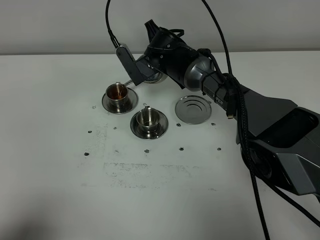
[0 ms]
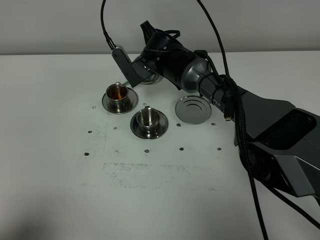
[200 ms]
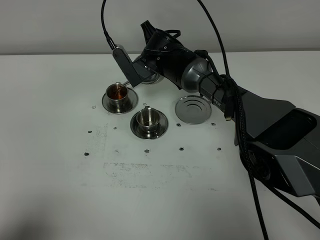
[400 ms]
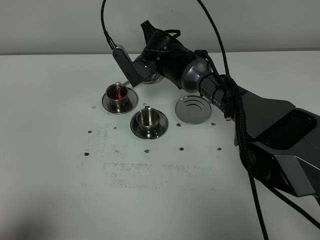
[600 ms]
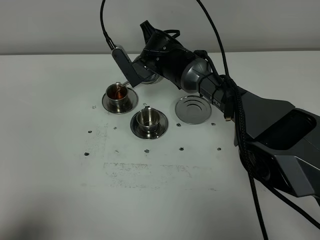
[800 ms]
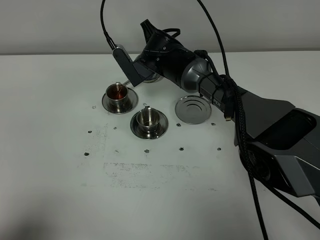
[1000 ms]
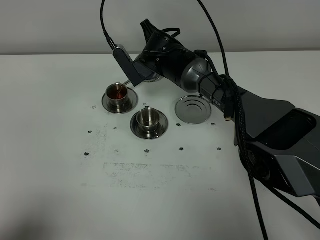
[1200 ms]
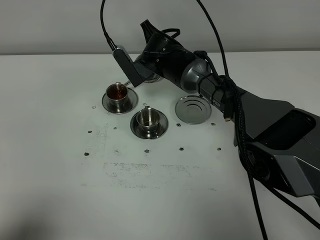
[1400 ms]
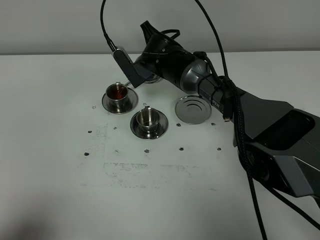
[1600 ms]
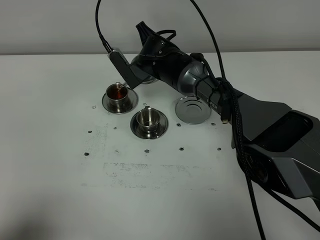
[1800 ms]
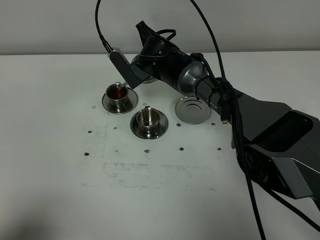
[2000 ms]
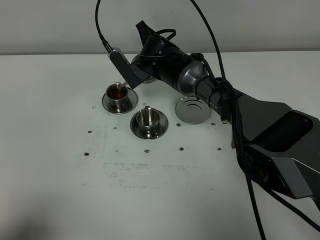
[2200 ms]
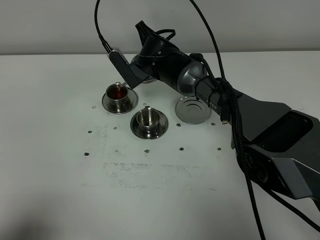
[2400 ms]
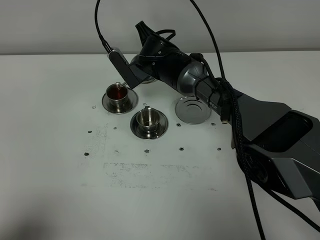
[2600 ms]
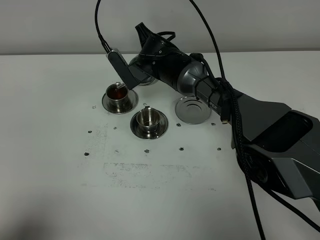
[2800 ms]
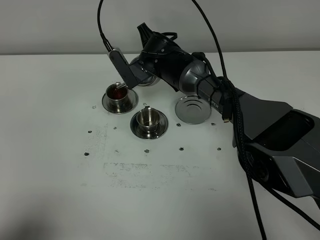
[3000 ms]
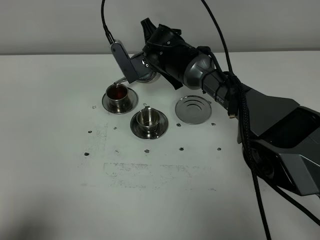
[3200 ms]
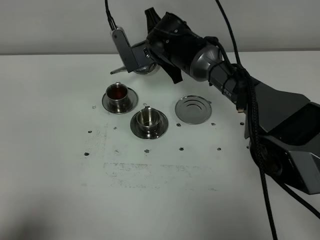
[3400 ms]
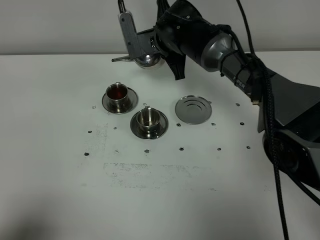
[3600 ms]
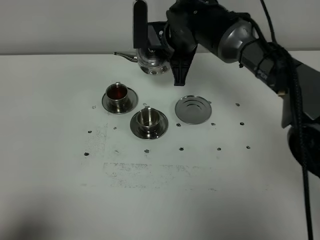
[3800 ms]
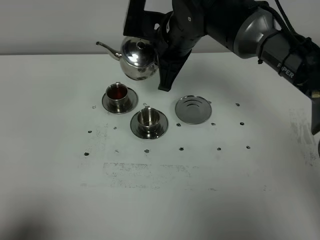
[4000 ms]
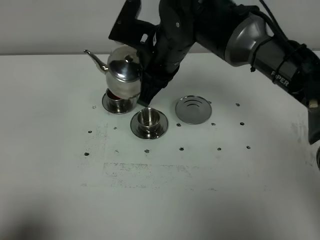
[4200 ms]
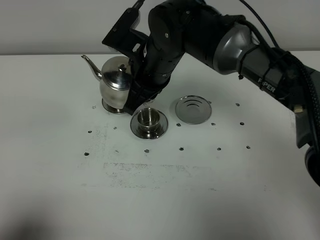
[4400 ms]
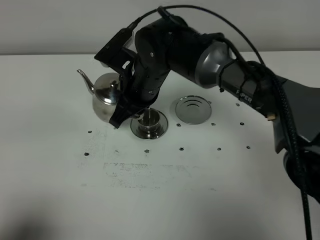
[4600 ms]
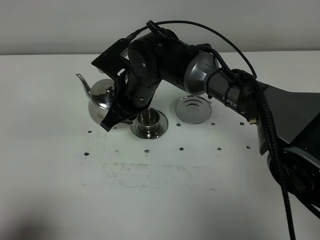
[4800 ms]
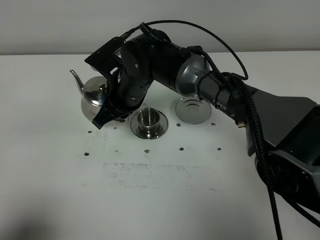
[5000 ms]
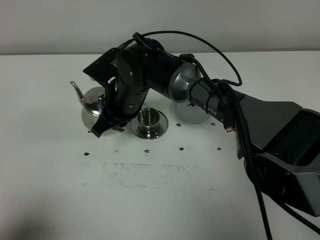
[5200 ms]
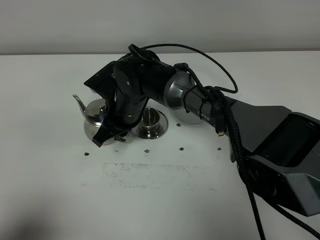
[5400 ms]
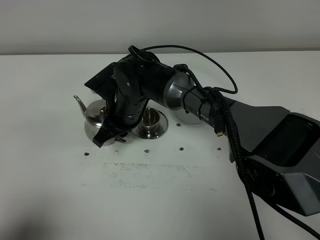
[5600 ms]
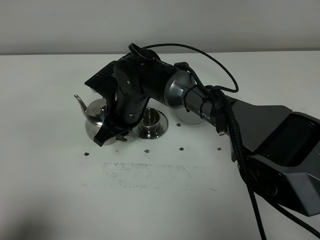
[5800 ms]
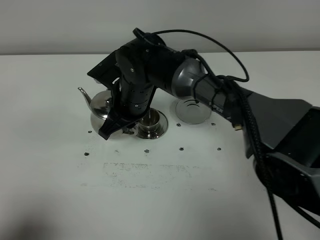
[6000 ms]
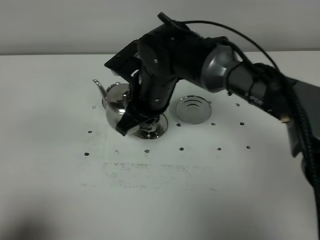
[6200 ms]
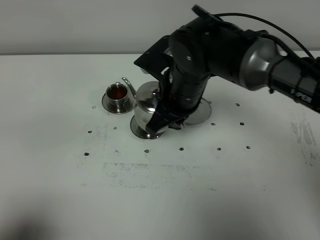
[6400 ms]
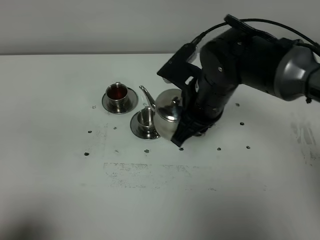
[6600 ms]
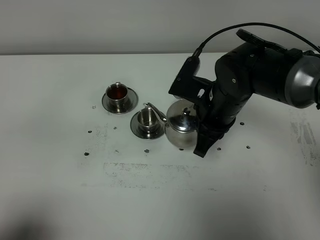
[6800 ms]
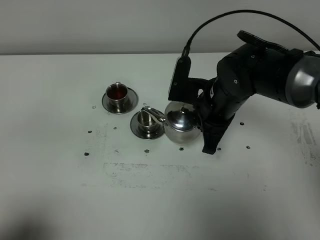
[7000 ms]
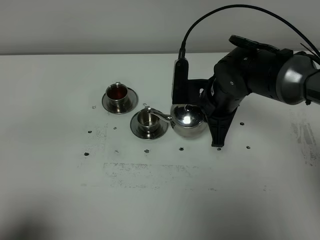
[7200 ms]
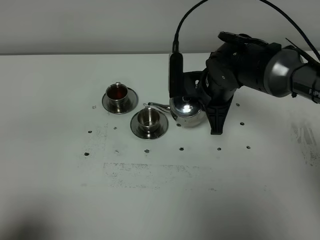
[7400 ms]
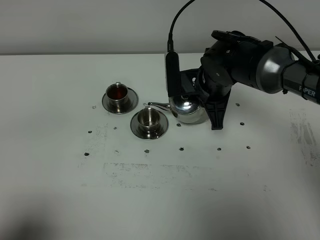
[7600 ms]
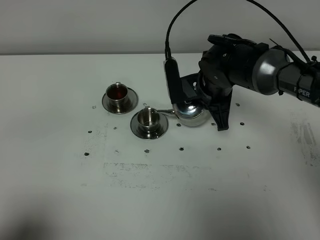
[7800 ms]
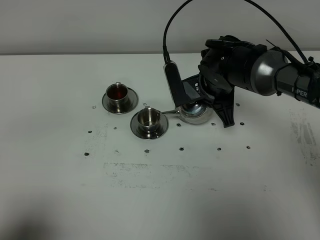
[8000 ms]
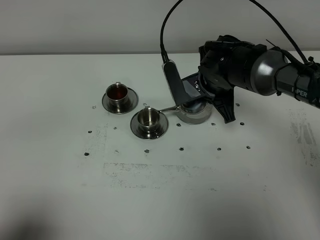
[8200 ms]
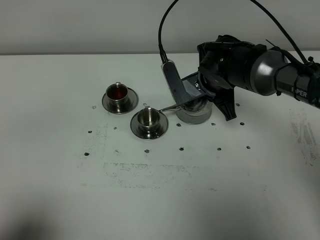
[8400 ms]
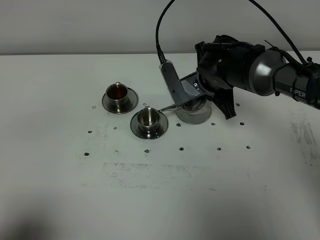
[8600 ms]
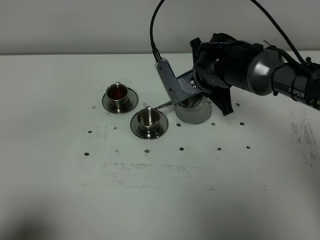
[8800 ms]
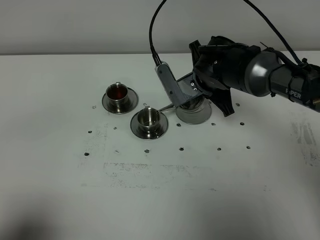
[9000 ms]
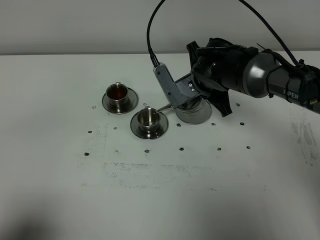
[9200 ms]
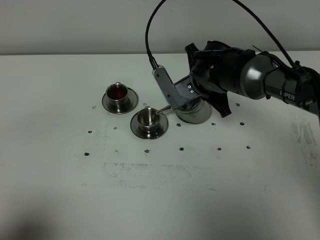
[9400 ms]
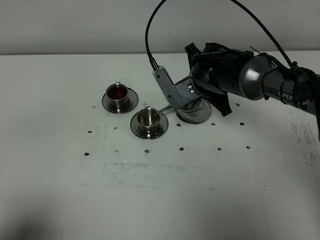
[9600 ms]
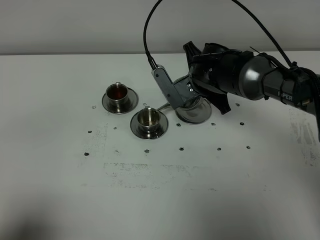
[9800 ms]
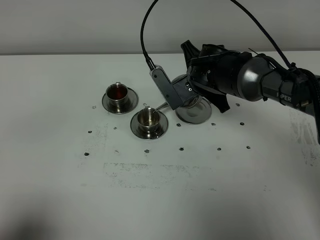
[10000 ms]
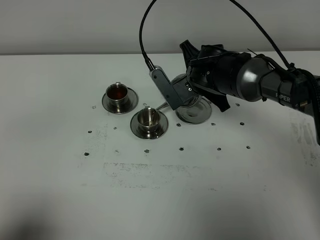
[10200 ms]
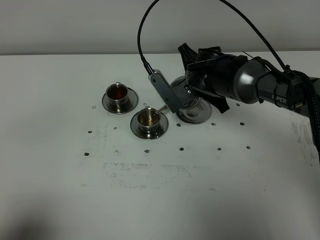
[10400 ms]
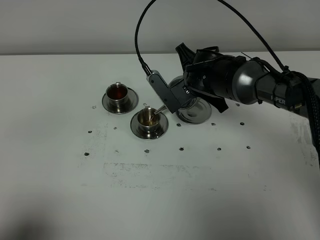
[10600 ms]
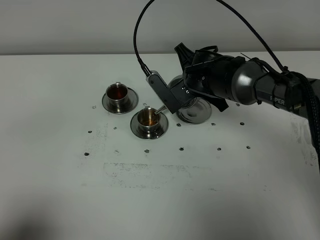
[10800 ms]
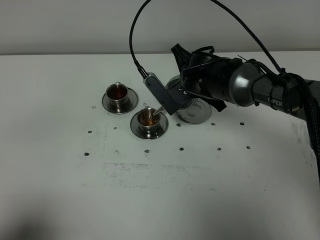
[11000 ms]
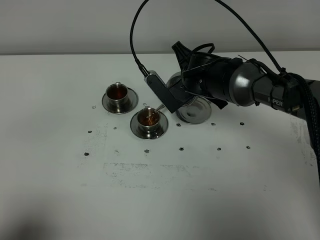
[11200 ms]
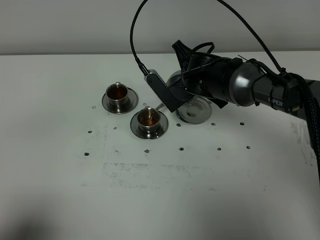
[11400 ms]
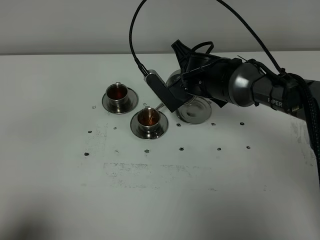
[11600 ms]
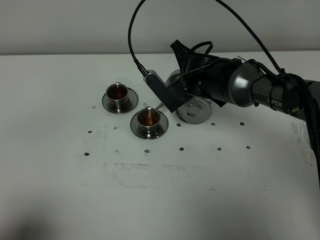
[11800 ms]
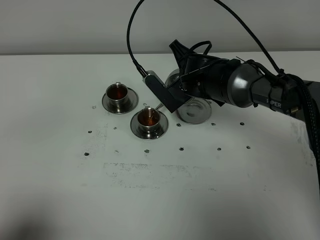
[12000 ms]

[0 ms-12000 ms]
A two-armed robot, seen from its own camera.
Task of the whole recording: grasp the stainless steel teapot and pour the tea into the two stainless steel teacups one by one, put the stainless steel teapot back in its original place.
Step, 0 ms to 3200 ms: Pour tea into the teacup with the right gripper.
0 ms to 1600 ms: Both grippers stay about where they are.
1600 ms to 3000 ms: The two grippers keep their place.
3000 ms to 4400 ms: The right gripper moves backward and upward, some 15 cm.
4400 ms to 6000 ms: The right gripper is displaced downward by approximately 5 cm.
6000 ms to 7600 ms: The right gripper is displaced to the right by approximately 15 cm.
9000 ms to 12000 ms: There are only small adjustments of the grippers.

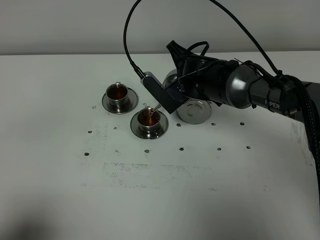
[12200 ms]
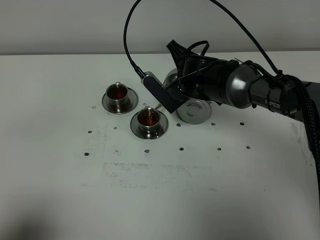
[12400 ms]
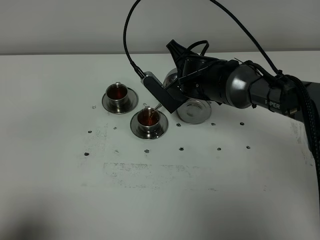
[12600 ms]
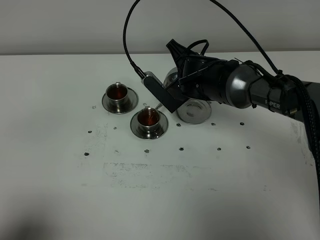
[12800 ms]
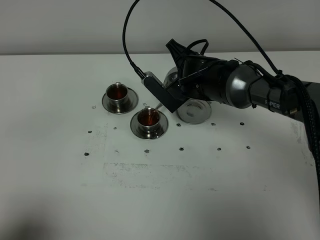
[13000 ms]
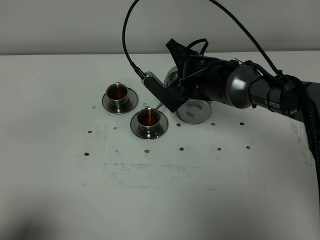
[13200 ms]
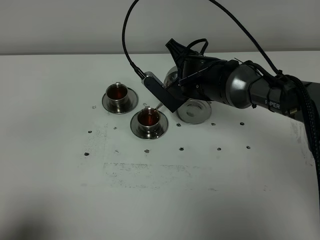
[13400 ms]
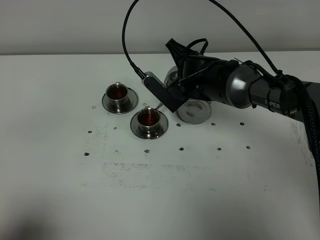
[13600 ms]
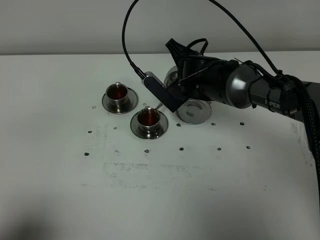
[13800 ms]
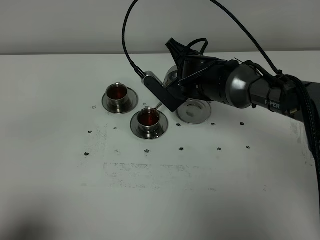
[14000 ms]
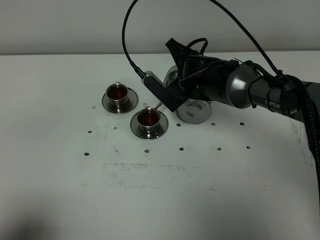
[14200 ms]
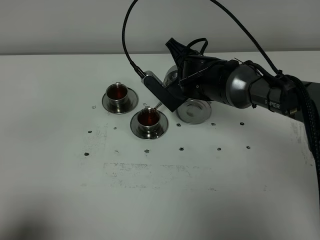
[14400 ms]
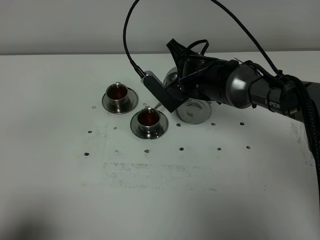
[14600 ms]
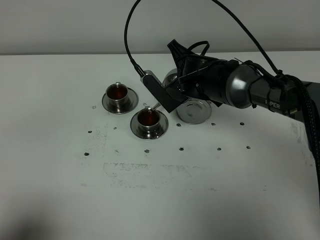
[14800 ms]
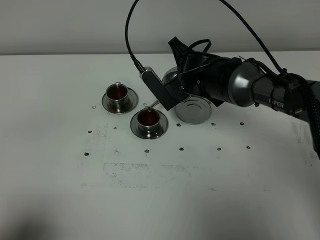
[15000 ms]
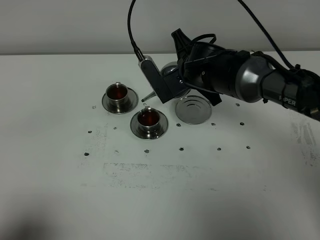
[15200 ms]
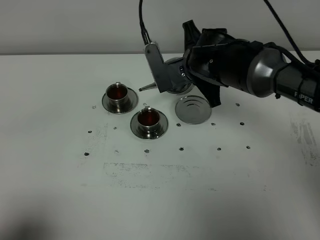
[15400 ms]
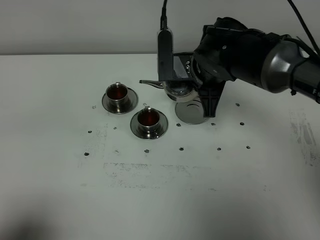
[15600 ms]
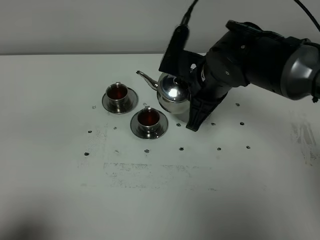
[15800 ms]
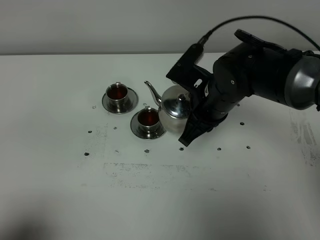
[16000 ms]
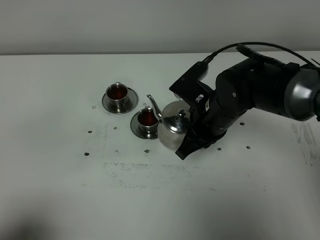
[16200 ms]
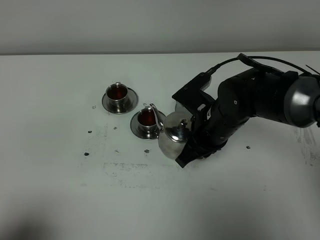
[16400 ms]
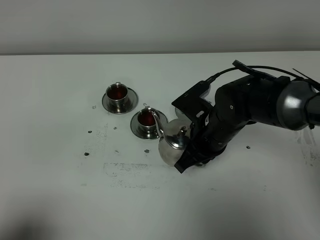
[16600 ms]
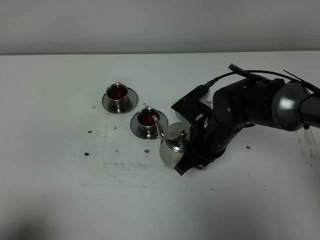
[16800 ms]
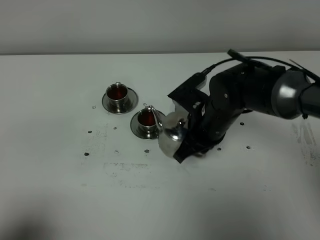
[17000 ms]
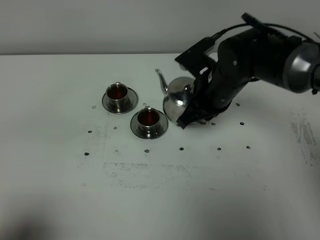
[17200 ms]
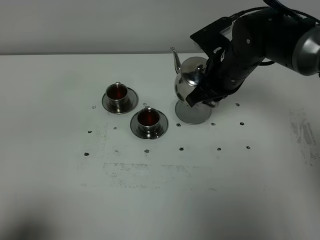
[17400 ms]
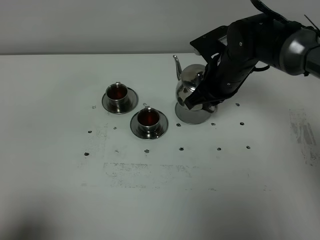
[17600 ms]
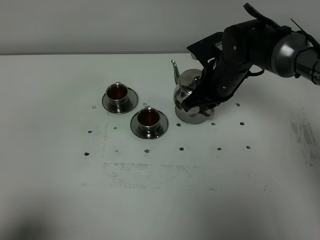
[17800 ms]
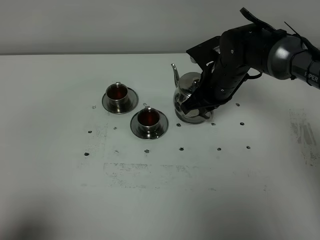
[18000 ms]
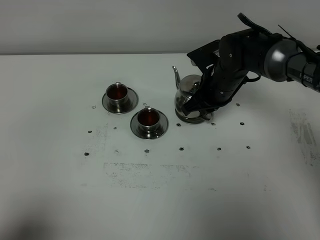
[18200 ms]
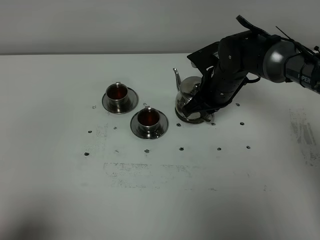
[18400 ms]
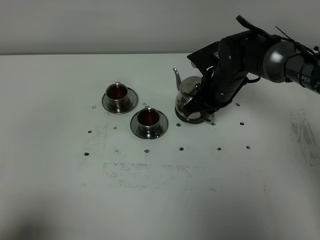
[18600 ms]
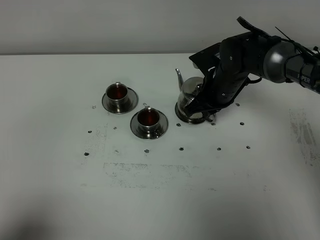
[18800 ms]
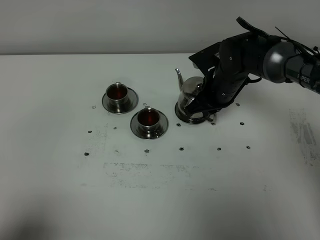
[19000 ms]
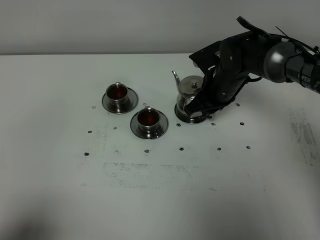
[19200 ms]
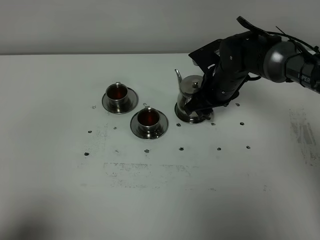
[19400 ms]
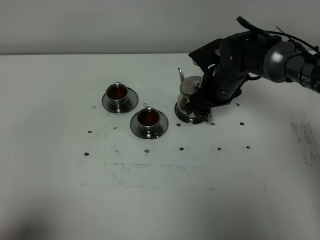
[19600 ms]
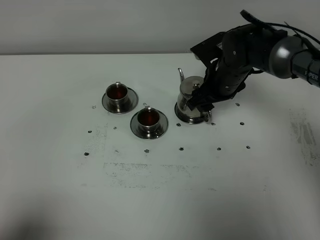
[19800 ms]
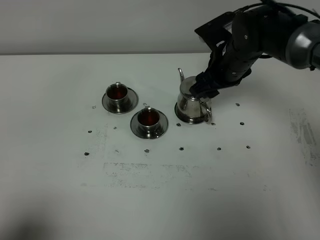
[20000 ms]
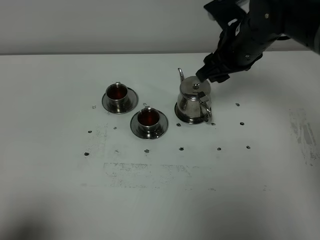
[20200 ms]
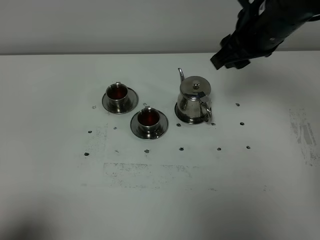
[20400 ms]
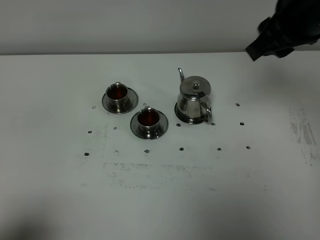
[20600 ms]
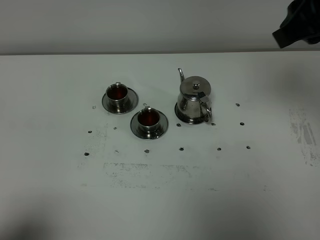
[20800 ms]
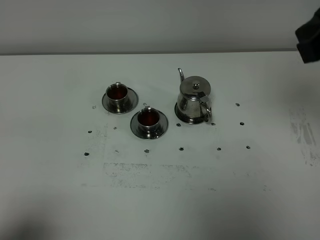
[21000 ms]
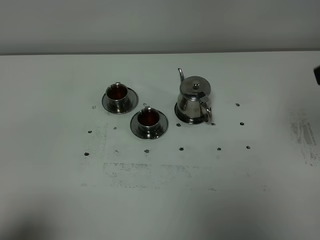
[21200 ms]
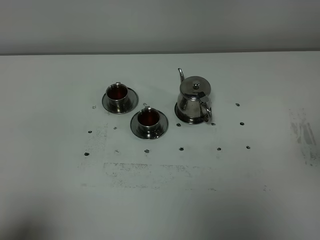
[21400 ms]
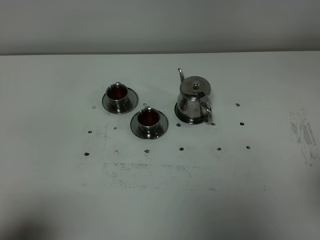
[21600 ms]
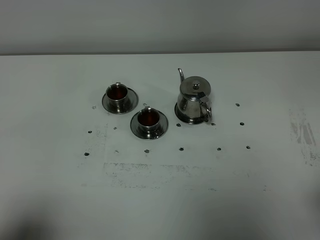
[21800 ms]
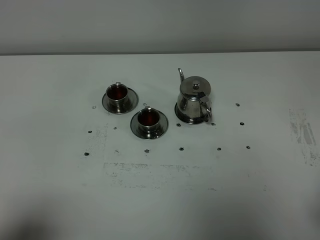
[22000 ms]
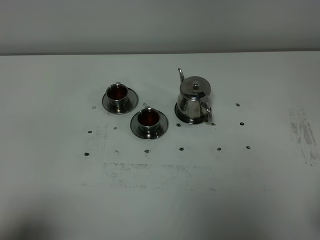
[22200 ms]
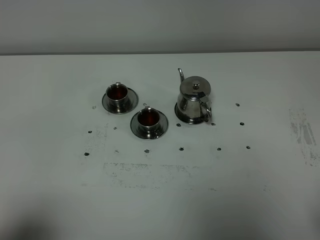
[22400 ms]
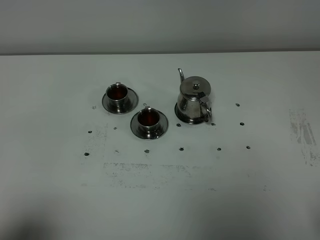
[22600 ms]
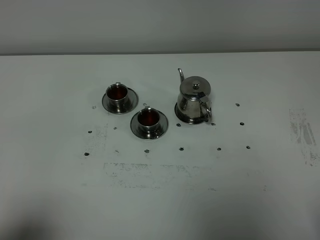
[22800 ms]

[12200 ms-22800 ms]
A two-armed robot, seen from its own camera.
Task of the whole recording: grasp the stainless steel teapot and pour the tea into the two stainless steel teacups one by one, put the stainless steel teapot back in its original place.
Step, 12200 ms to 15200 ms: Pour tea into the teacup with the right gripper.
12200 ms to 13800 ms: The two grippers keep their place.
13800 ms to 15200 ms: There are only small adjustments of the grippers.
15200 ms to 16800 ms: The right gripper goes some 10 cm backward and downward.
16800 ms to 18200 ms: The right gripper moves forward, roughly 10 cm.
18200 ms to 19800 ms: The right gripper opens its fingers.
19800 ms to 21200 ms: The right gripper travels backward, upward and to the right by roughly 35 cm, and closes.
21200 ms to 22800 ms: The right gripper moves backward and downward, about 20 cm.
